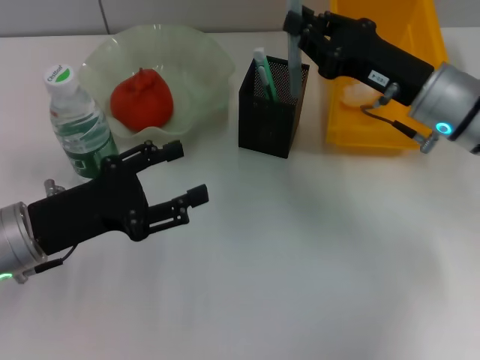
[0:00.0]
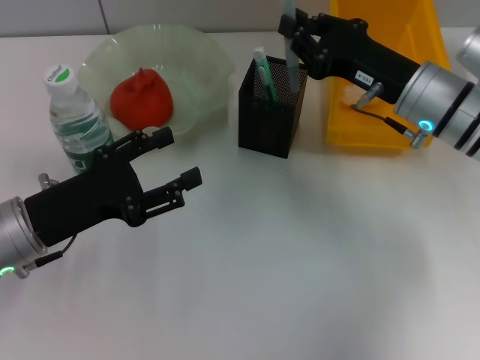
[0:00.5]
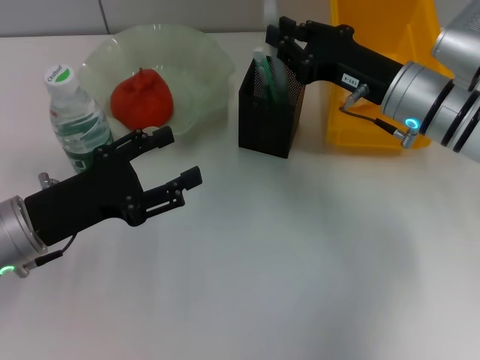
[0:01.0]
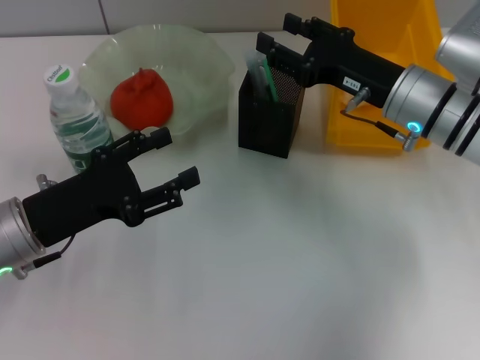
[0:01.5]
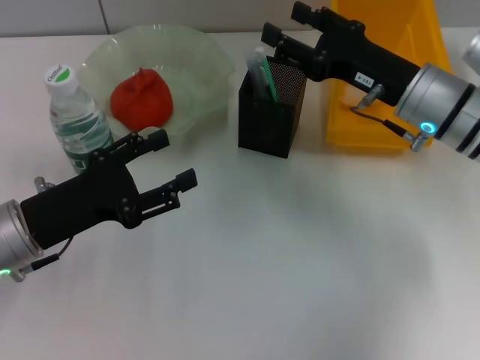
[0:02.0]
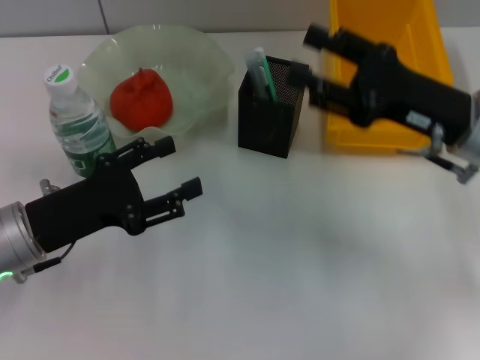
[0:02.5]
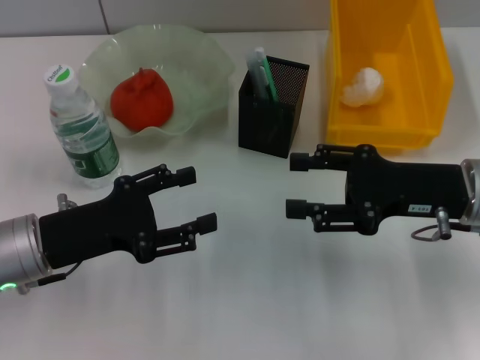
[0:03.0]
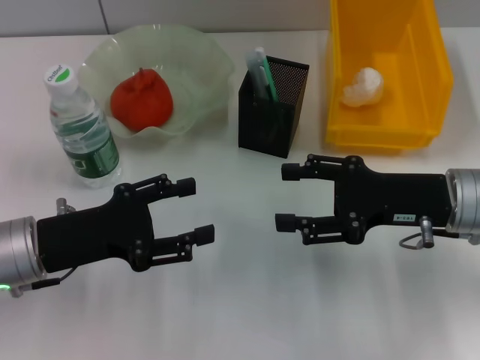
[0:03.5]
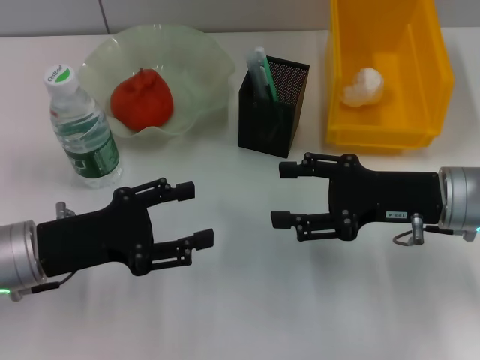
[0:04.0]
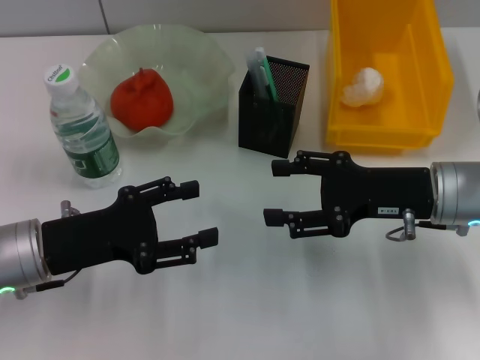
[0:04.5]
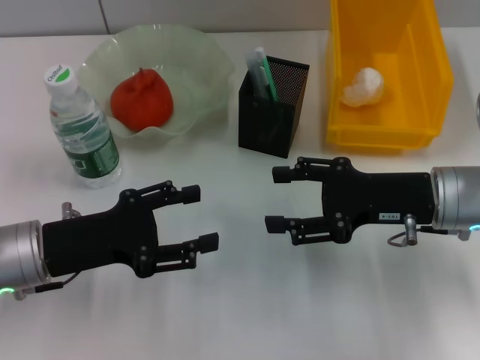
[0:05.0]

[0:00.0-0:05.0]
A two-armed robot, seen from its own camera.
0:00.0 to 0:02.5: The right gripper opens.
